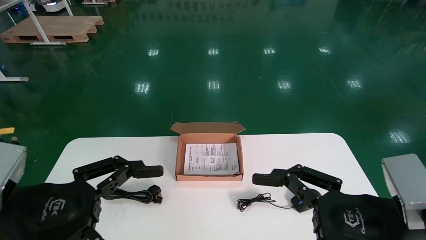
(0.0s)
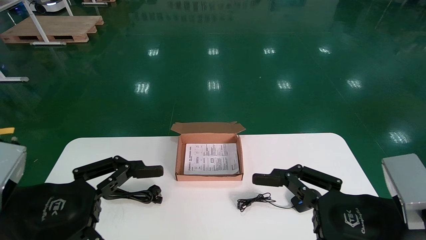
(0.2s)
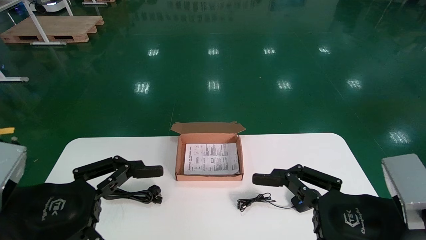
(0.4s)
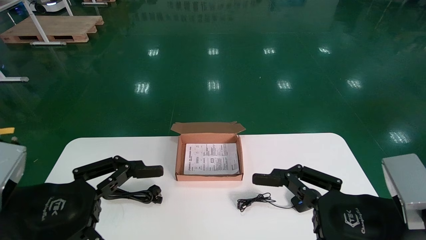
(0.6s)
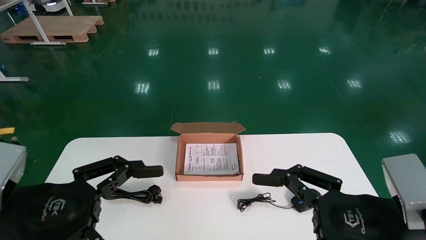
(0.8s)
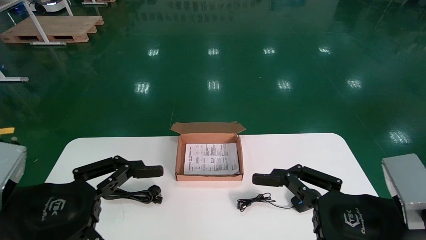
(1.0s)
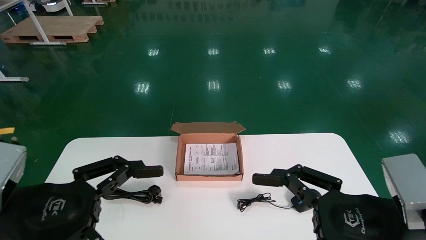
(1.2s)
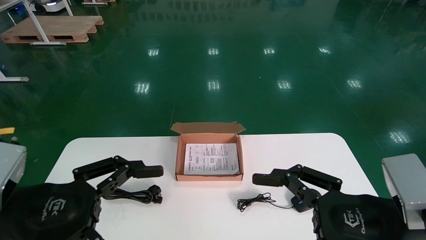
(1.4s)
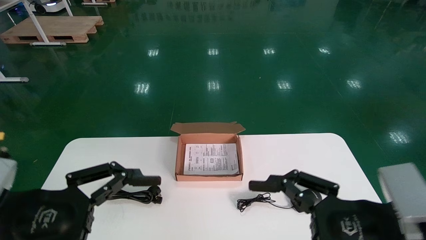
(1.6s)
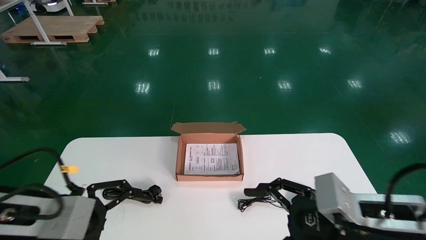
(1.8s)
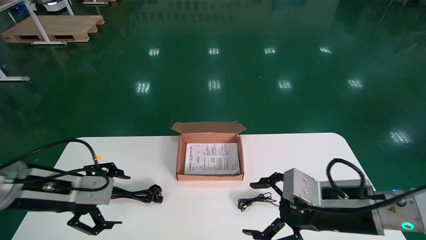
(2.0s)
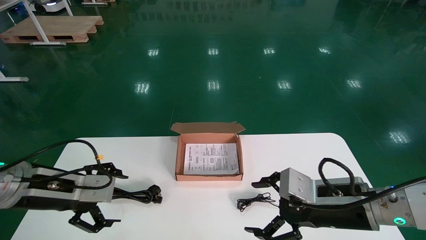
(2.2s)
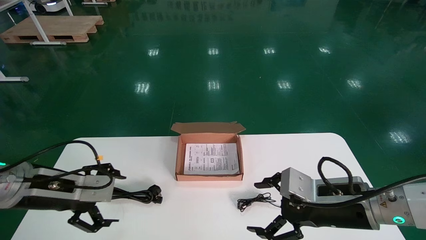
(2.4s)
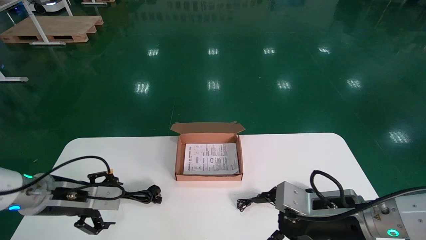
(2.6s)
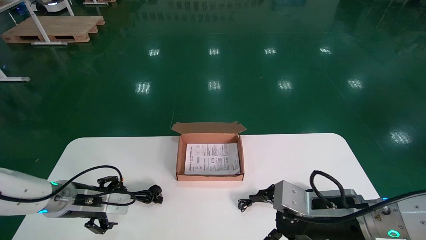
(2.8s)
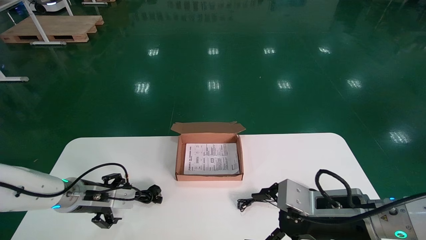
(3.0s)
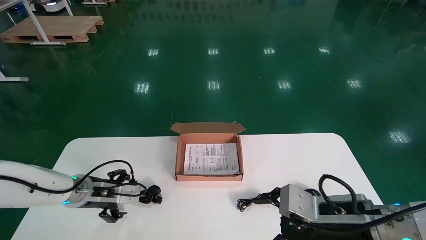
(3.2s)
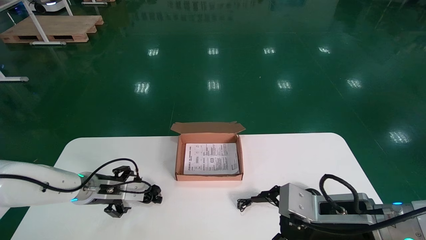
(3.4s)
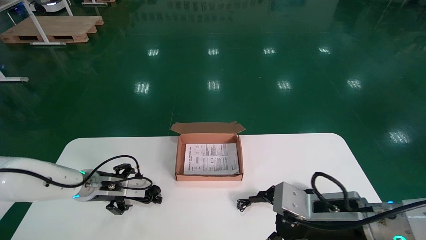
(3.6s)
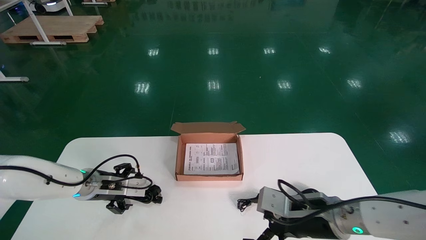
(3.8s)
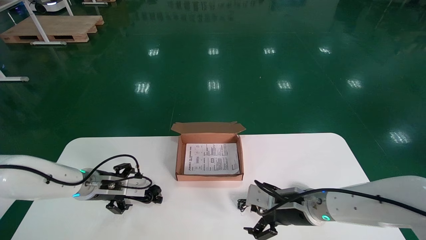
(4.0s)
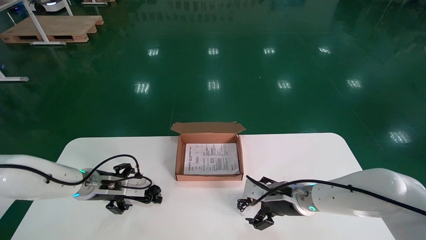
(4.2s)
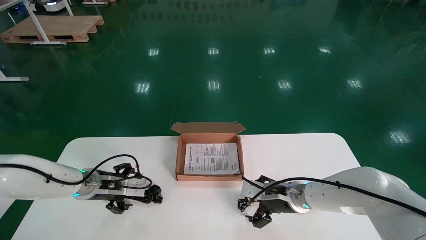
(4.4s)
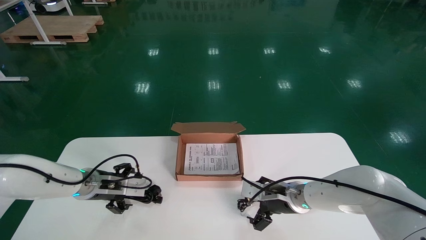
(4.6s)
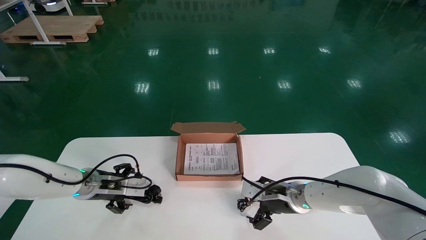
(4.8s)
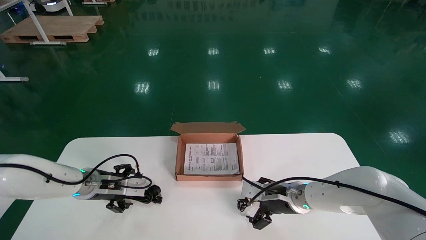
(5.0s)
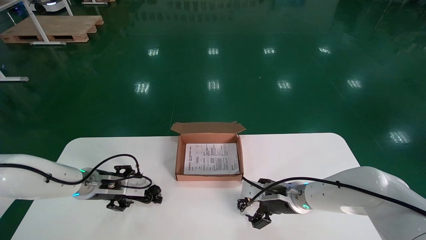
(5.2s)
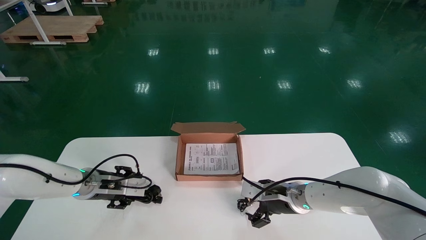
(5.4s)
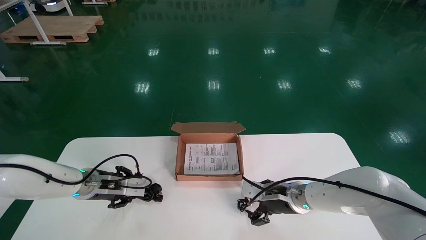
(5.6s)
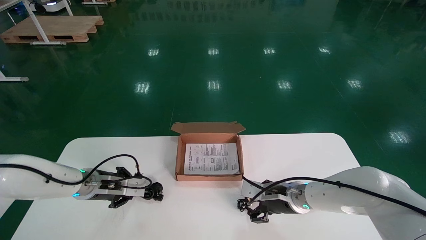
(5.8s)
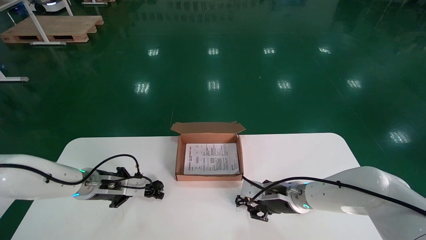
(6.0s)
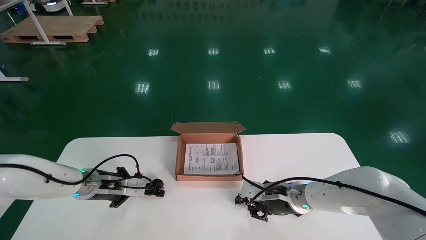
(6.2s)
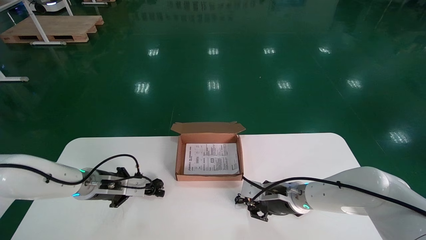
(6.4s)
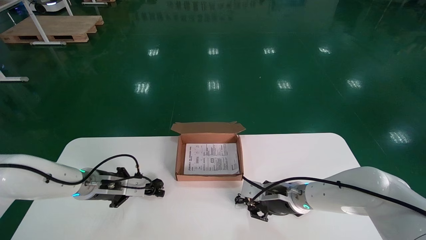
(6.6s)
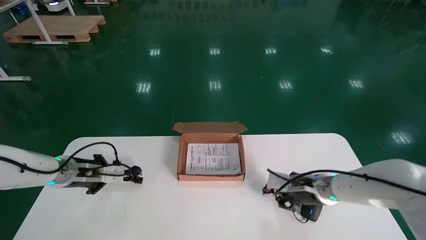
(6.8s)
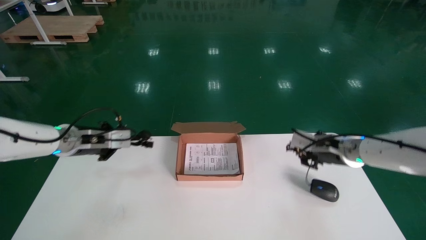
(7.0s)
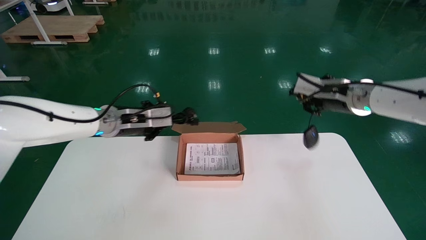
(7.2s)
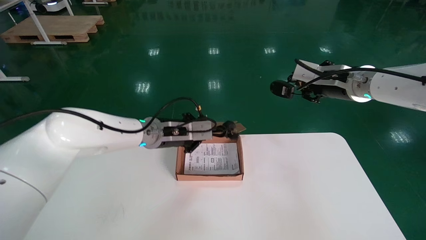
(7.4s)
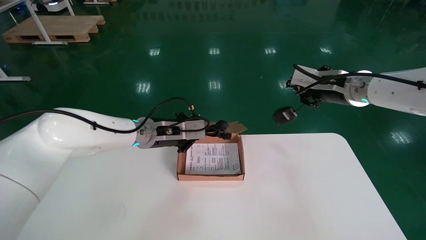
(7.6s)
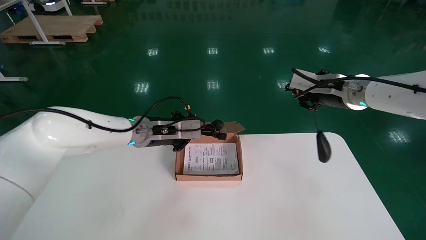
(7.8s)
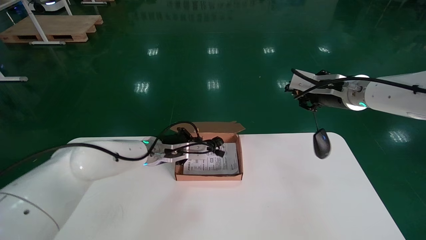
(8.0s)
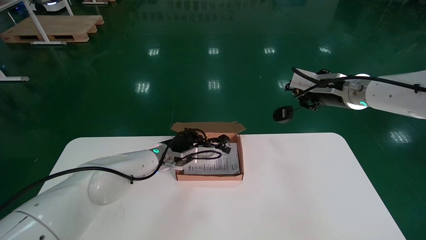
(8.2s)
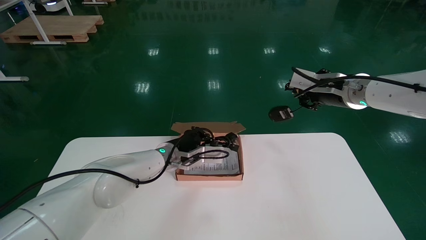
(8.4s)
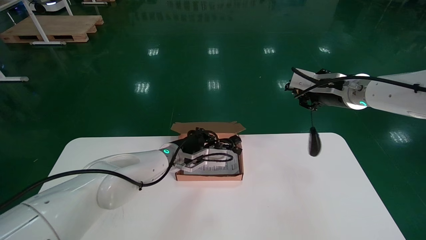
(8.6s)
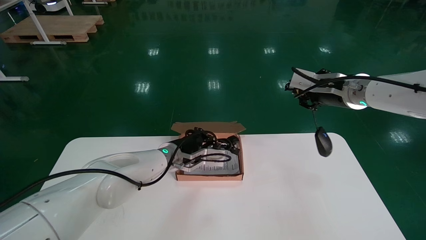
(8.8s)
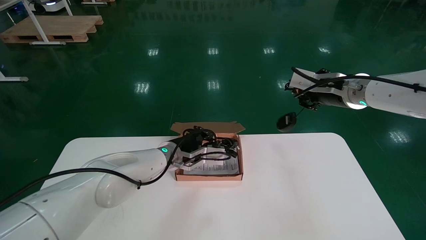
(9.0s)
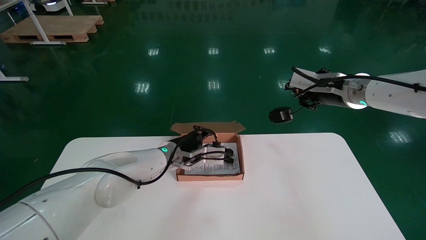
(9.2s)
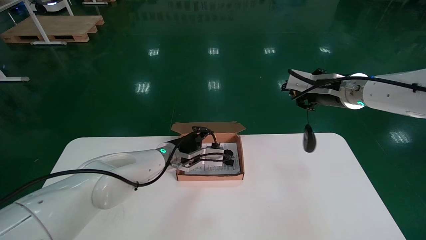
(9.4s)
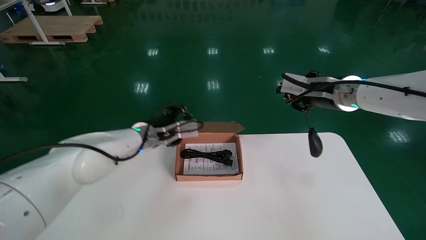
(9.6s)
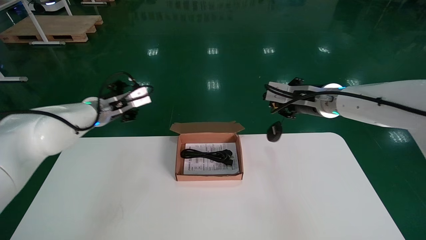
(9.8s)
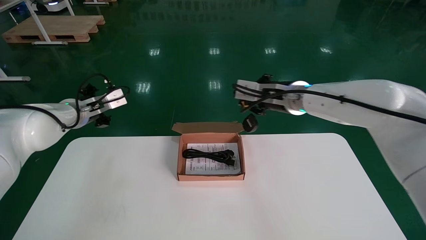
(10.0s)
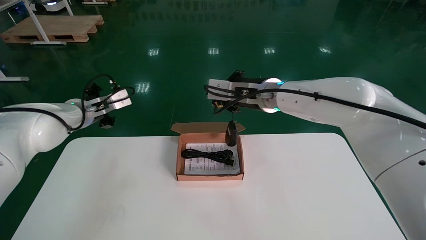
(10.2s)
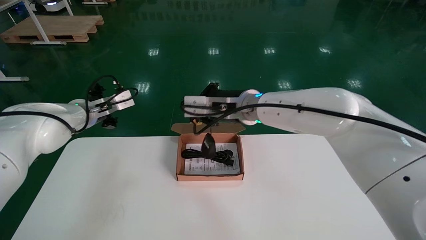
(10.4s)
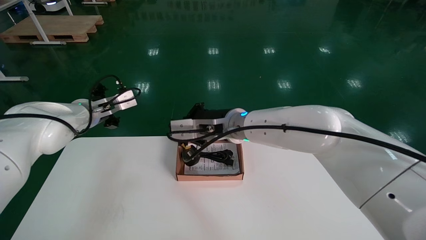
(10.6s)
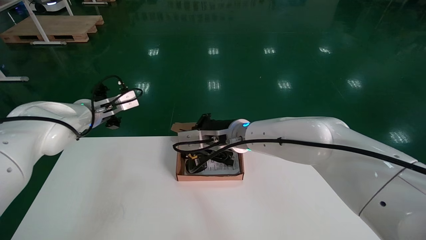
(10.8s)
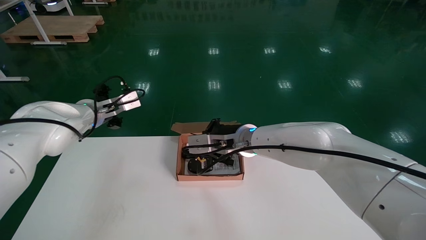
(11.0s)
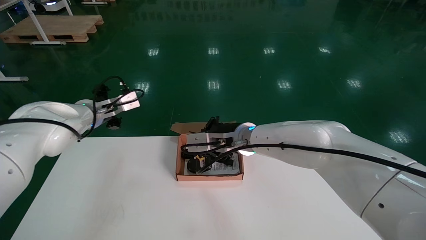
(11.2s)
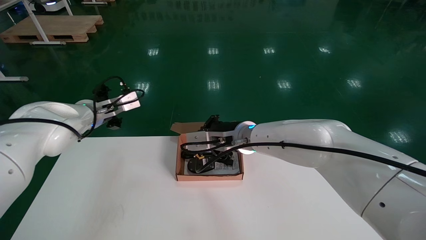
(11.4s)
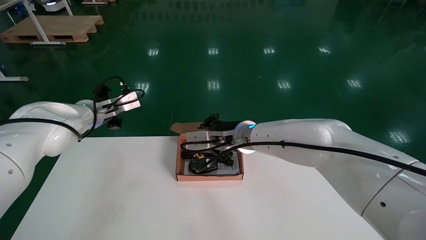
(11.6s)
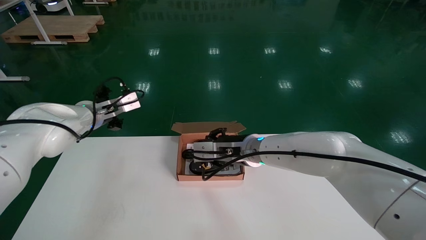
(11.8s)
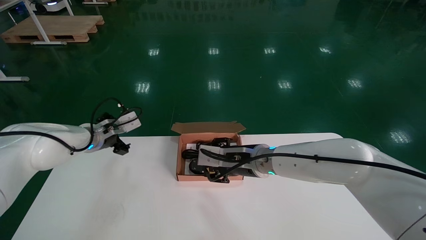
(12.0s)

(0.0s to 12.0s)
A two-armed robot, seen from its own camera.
Step, 1.8s - 6.0s: Simultaneously pick up the mouse and power cord from the accessory packaging area.
Step, 6.2s - 11.4s: Place the mouse and power cord into the box.
1.6s - 3.0s: The right gripper shifts roughly 10 cm forward, while the left gripper moves forward and downward, approximately 20 cm.
3.0s - 4.4s: The right gripper is displaced forward by roughly 15 cm.
4.4s - 6.0s: The right gripper closes its fingers, while the left gripper closes up.
6.0s - 7.6s: The left gripper is displaced to the right and upward by roughly 20 cm, while the right gripper shifts some 25 cm upward.
7.6s - 9.0s: The left gripper shifts some 10 cm downward and to the right.
9.0s - 10.4s: The left gripper heads to the left and upward, covering about 25 cm, and opens; the right gripper goes approximately 20 cm to the left.
10.4s - 12.0s: The left gripper heads downward, covering some 5 cm, while the right gripper heads downward, covering some 10 cm, and opens up.

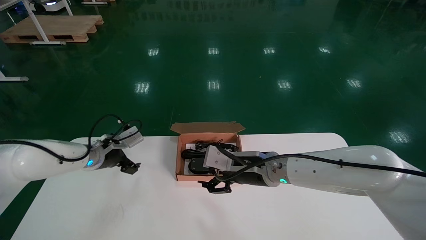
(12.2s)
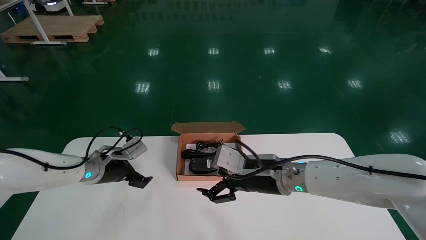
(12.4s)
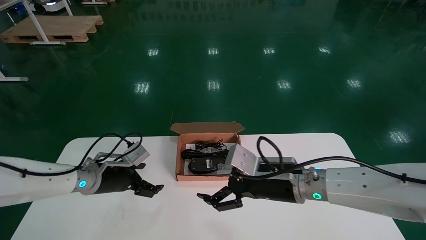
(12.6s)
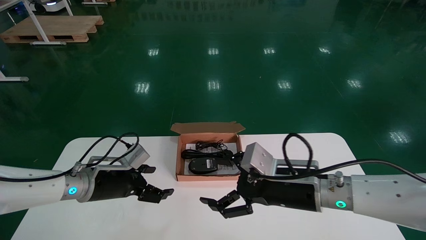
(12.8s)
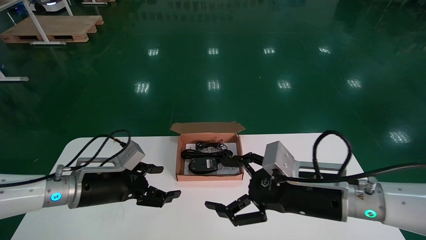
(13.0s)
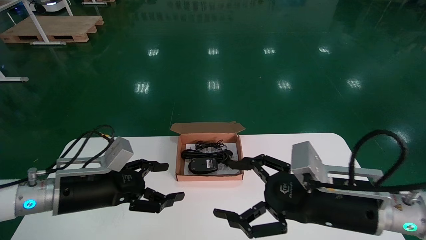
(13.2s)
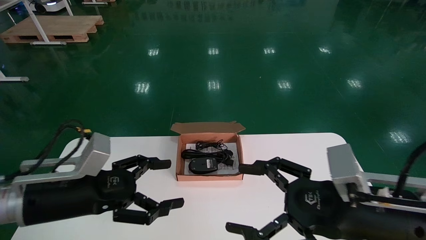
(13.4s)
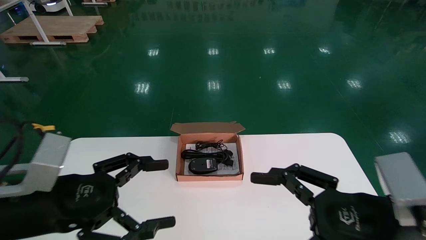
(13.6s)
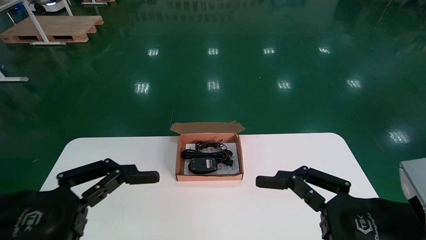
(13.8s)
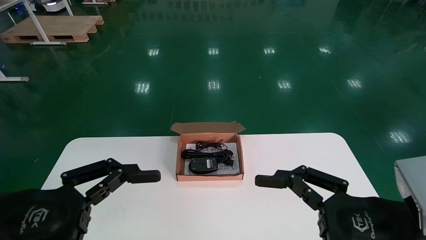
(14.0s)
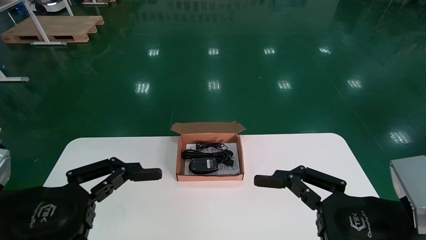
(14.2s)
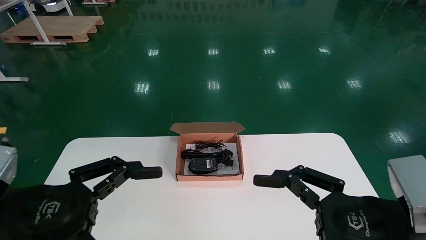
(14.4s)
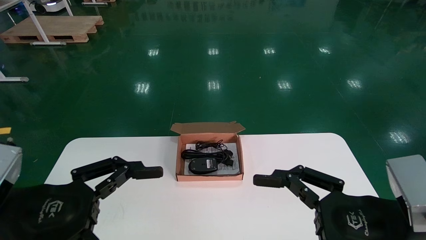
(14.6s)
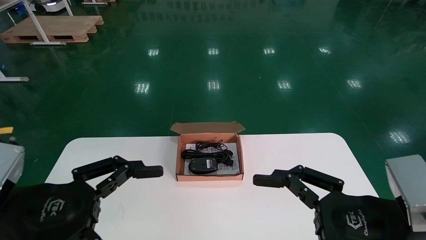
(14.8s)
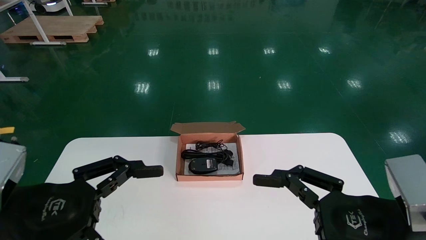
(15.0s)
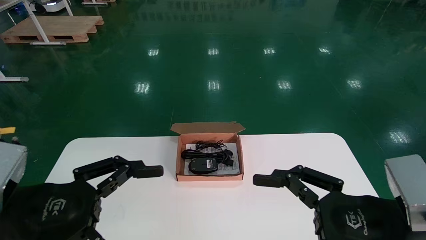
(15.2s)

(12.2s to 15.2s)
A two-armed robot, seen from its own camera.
12.2s - 13.8s: The right gripper goes roughly 25 cm backward and to the right, and opens up. Meanwhile the left gripper is displaced backward by approximately 30 cm.
13.8s - 15.2s: There are only small adjustments of the grippers.

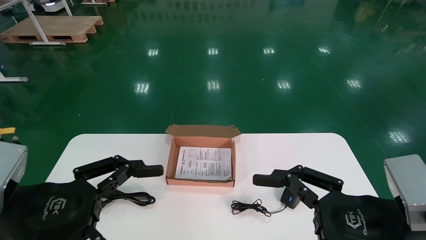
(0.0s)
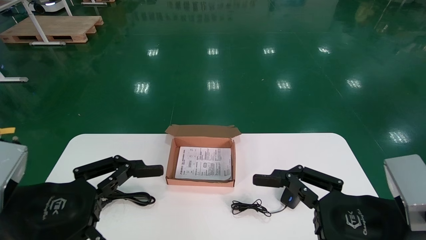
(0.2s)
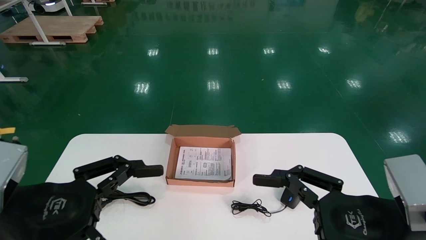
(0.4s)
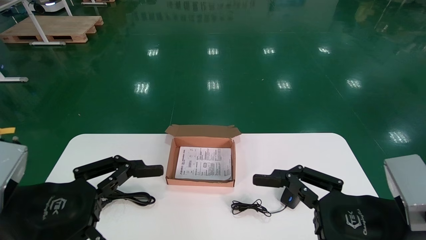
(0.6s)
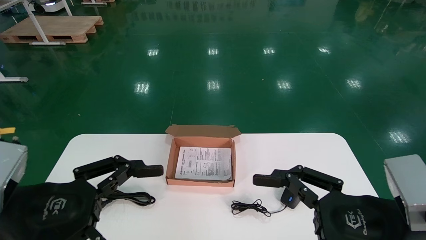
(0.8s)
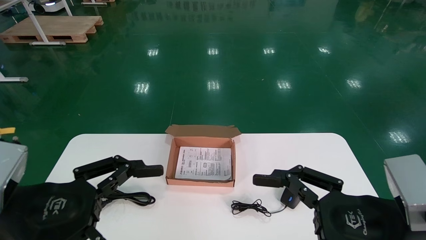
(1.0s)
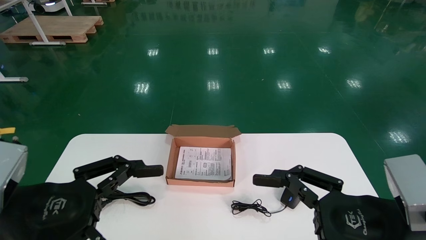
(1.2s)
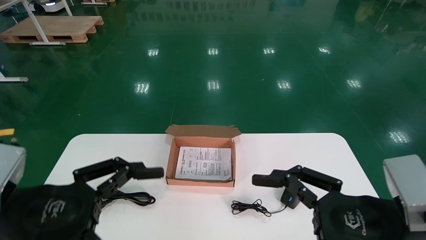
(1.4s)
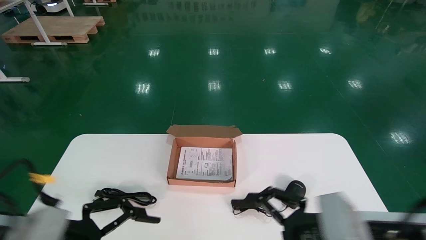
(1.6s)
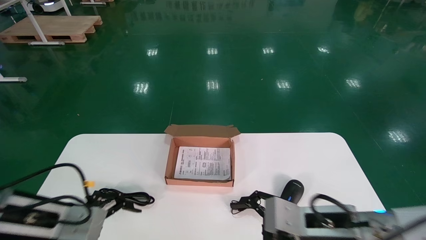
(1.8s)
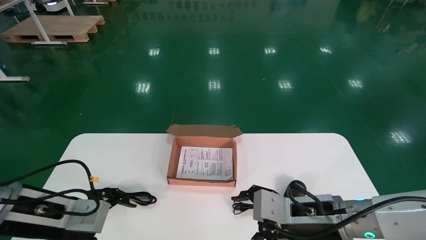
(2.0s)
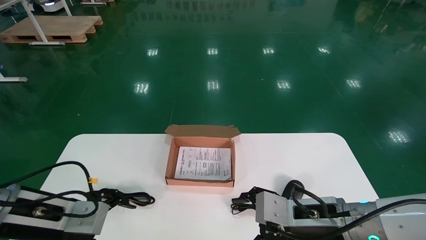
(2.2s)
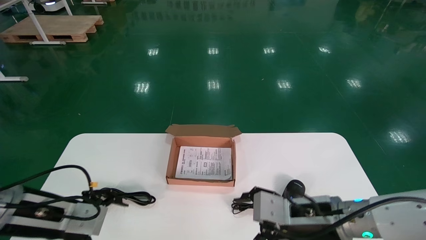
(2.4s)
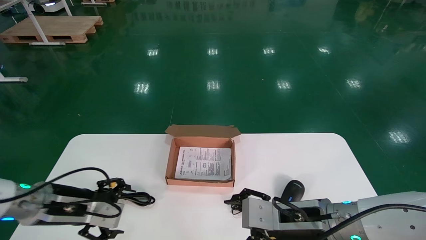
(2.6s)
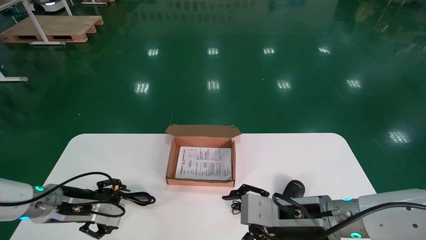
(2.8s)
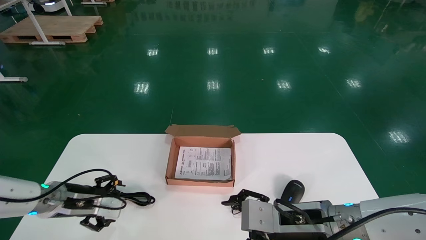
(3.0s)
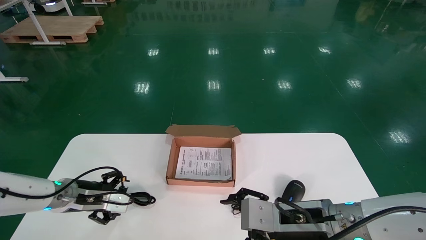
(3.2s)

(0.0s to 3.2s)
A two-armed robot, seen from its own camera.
0.0s - 1.6s: The left gripper ends up roughly 5 cm from where it was. The right gripper ends up roughly 5 cm from where it was.
1.6s - 3.2s: The right gripper goes roughly 5 cm forward. The left gripper heads forward, covering some 20 cm.
